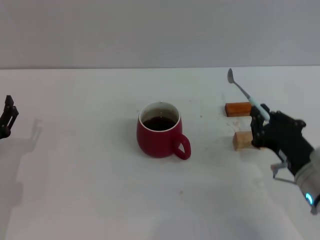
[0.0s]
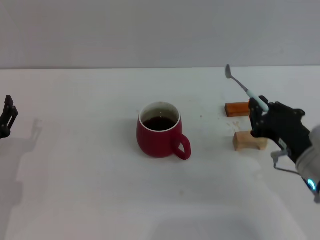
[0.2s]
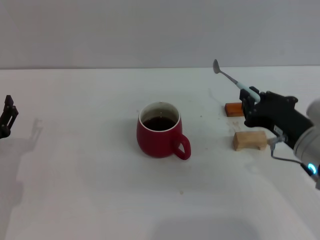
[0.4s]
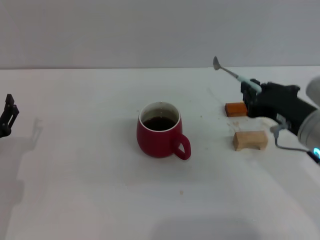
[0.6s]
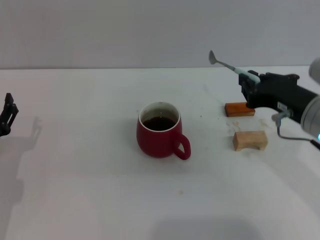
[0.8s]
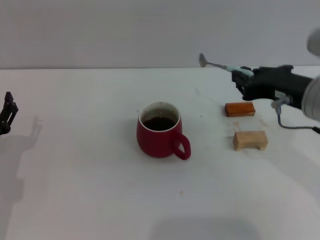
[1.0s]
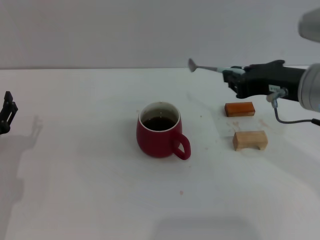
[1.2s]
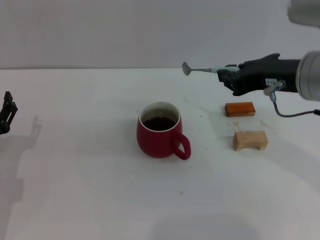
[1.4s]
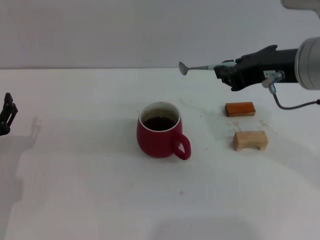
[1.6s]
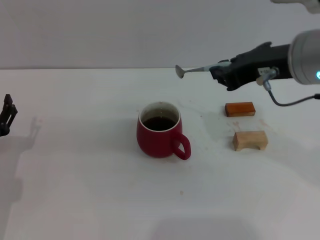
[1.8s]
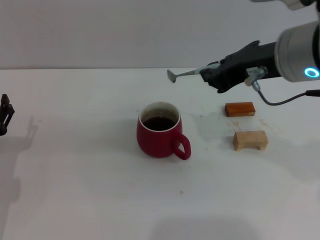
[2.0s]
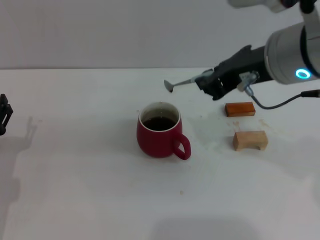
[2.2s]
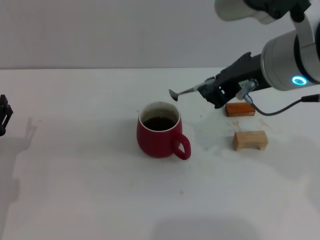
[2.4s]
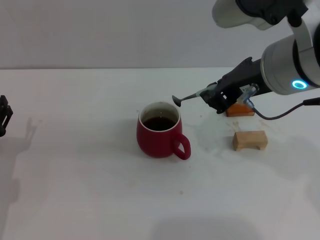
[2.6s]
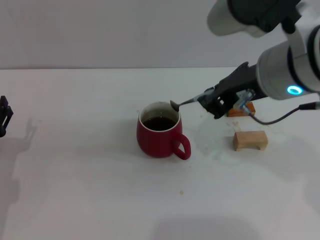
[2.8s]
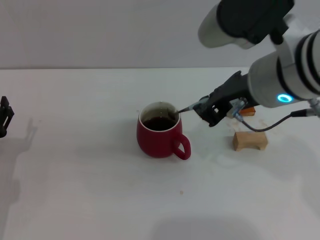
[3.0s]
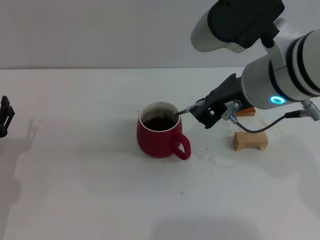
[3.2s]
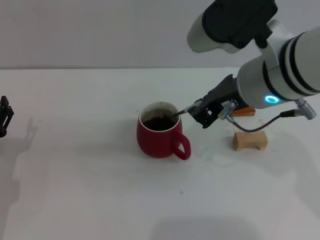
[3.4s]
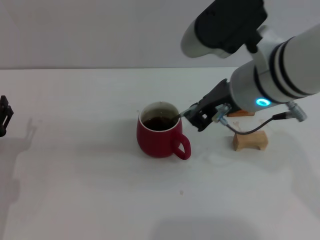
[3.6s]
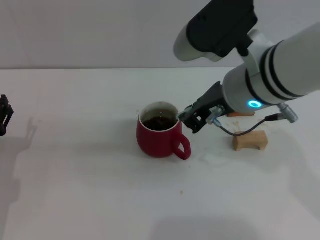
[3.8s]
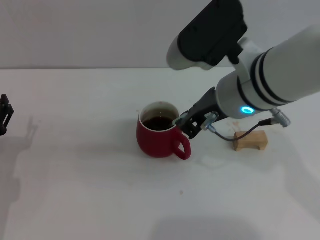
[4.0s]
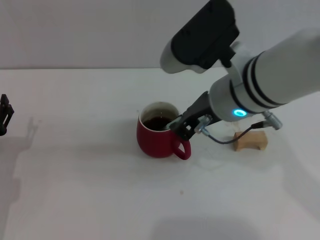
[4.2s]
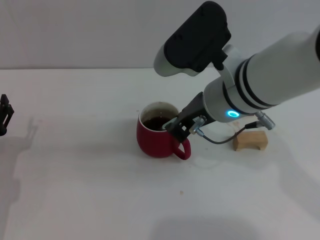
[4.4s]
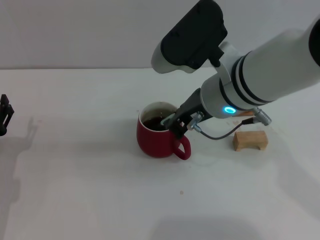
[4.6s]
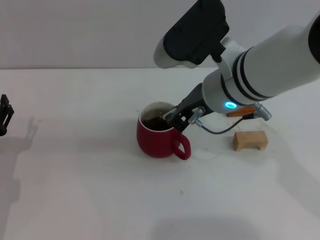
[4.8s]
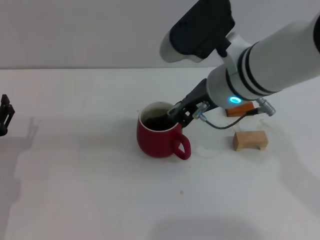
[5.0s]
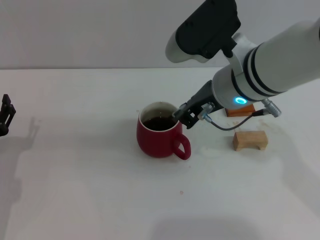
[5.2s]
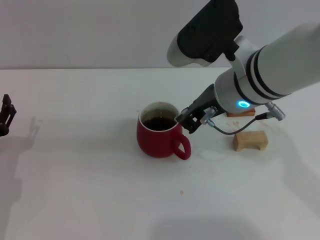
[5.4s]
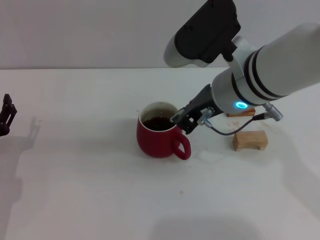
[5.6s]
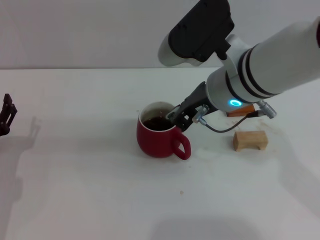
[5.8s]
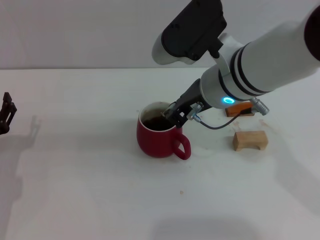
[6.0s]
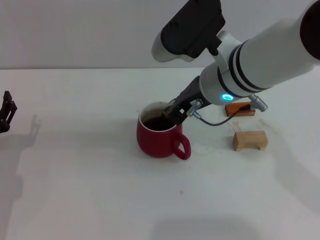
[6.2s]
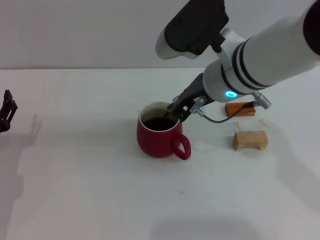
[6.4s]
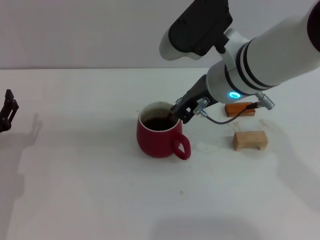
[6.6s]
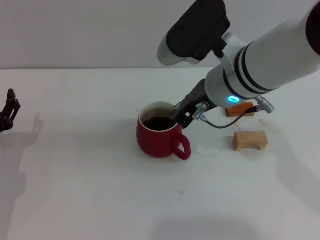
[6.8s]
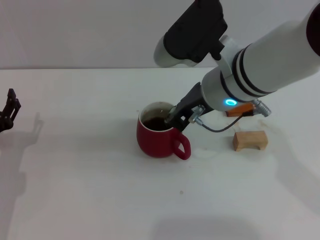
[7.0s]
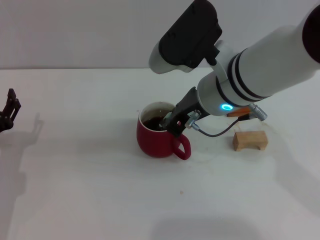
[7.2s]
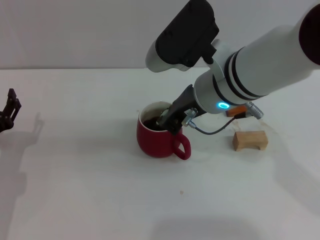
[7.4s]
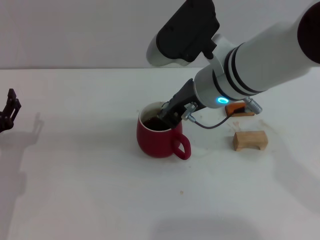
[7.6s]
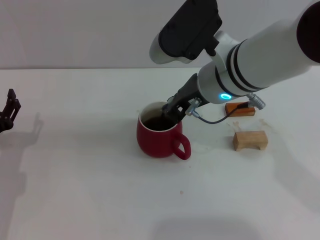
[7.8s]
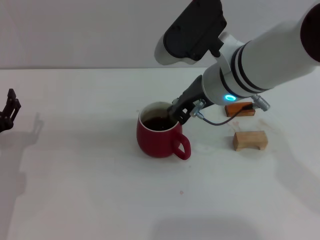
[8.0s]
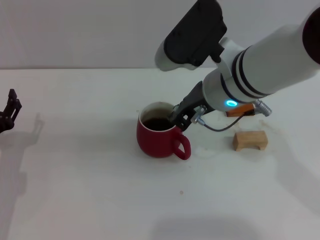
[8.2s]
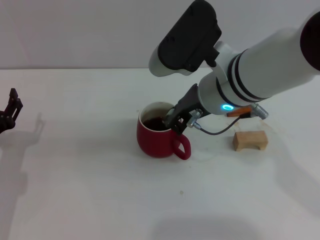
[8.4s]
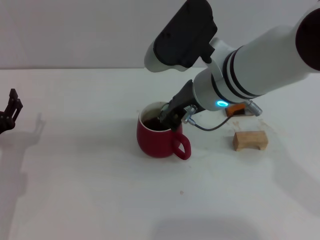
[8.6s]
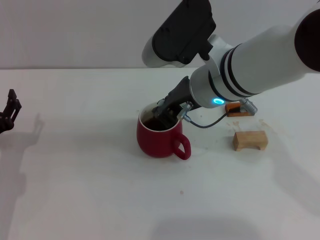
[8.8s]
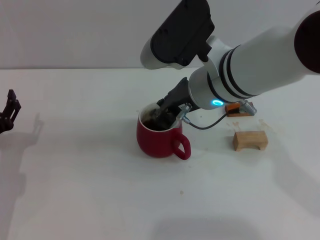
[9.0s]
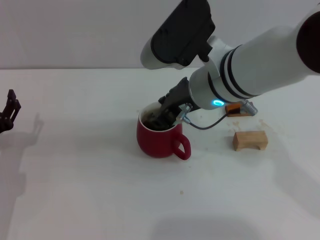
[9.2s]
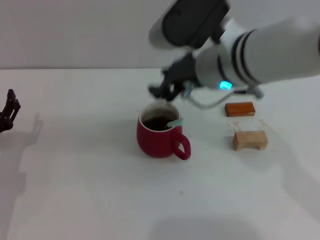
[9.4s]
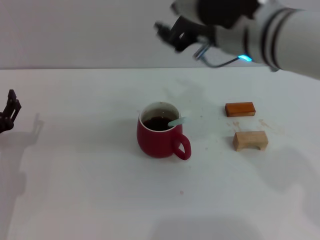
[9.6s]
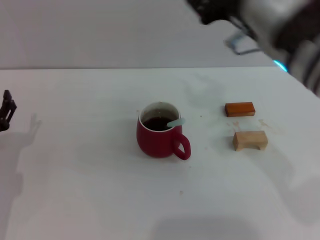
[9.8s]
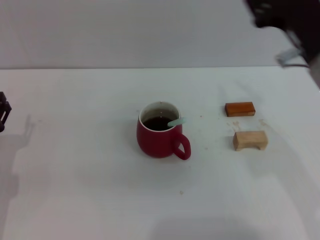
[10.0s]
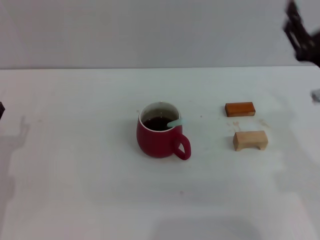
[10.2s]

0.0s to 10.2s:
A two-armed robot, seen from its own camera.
Task of the whole recording: Move the red cup to the center, lift the blue spoon, stir it three times in the cup, and put the spoon into the cup.
Step, 0.8s to 9.2s: Stir the coffee in the cup with the right gripper.
0.0s to 1.4s: The right gripper goes some 15 cm upward.
1.4s to 3.0s: The right gripper shifts about 5 cm to the left.
3.0s to 4.4s: The right gripper changes place by some 5 cm.
4.4s to 8.8s: The grippers stay close to where they were, moving slightly.
8.8s to 10.2s: The right gripper heads to the right and backward, covering approximately 20 cm, and opens its fingers.

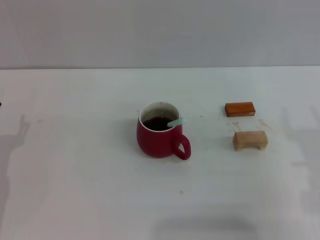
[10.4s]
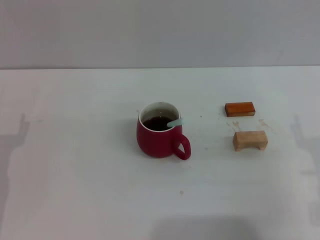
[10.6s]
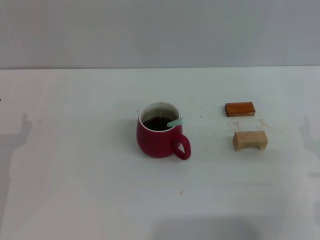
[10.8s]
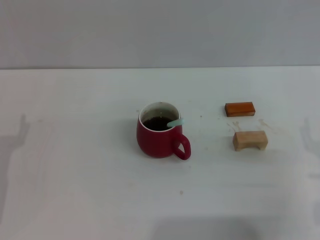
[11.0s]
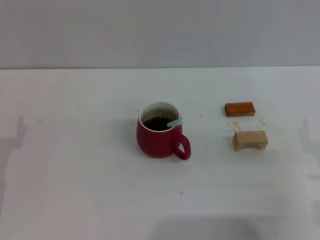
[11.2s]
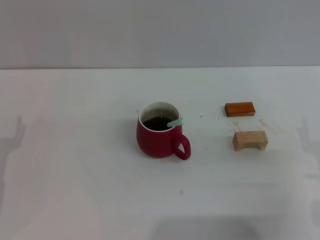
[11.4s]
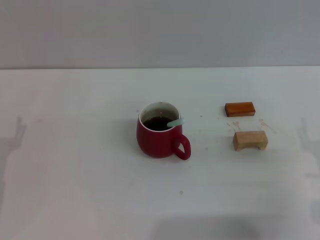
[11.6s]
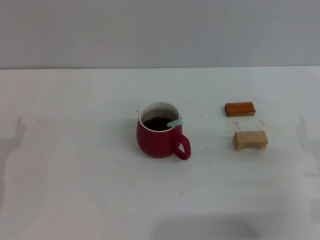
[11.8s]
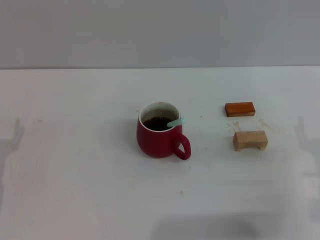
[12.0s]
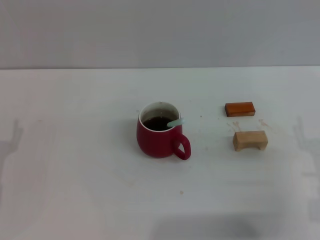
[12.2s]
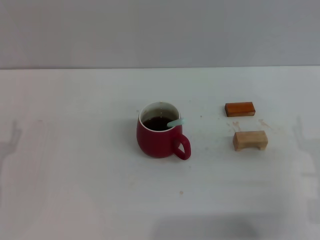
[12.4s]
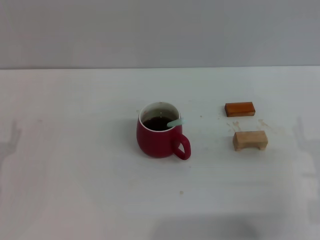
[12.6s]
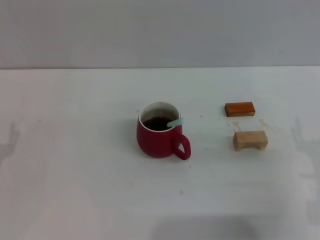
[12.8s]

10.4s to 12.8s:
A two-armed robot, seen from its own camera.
Task of the whole recording: Move the red cup to the center, lift the blue spoon, stir it three times in the cup, and put the spoon into the cup.
11.6s to 12.8s: Both grippers stay put.
